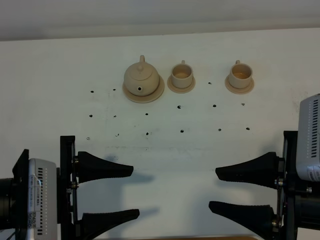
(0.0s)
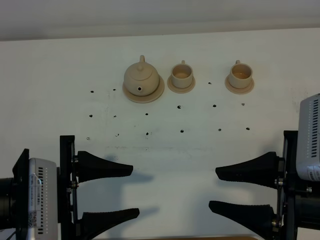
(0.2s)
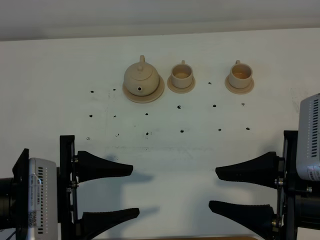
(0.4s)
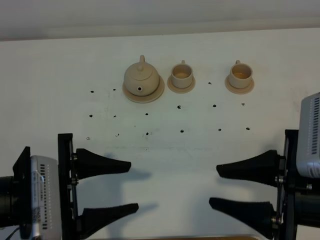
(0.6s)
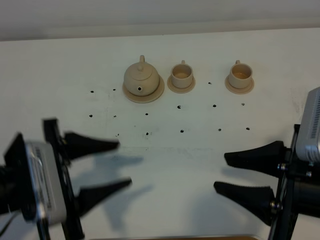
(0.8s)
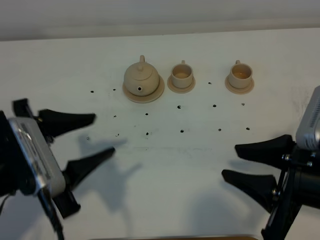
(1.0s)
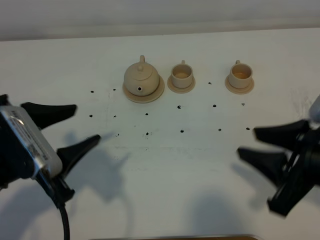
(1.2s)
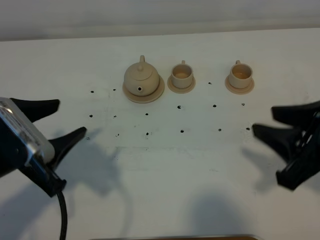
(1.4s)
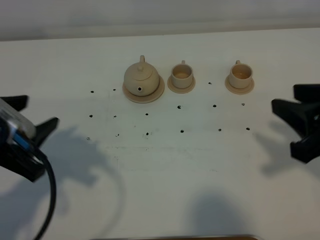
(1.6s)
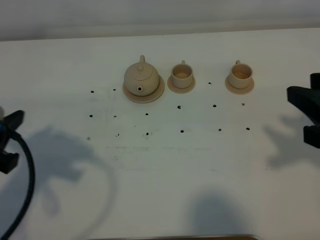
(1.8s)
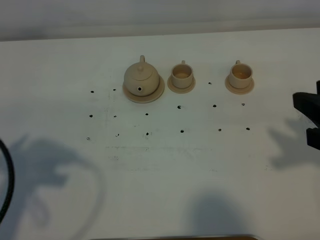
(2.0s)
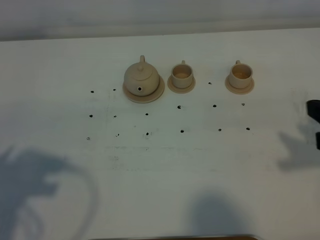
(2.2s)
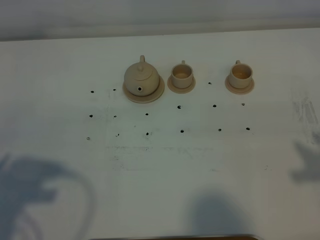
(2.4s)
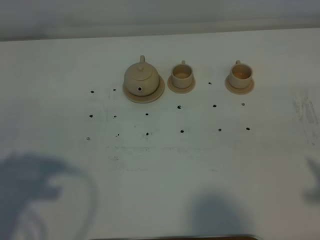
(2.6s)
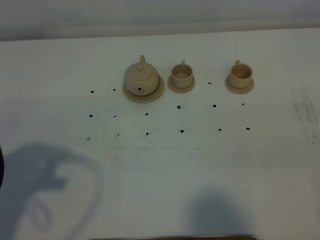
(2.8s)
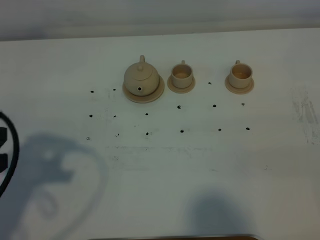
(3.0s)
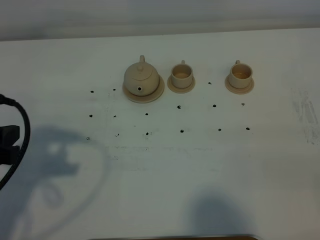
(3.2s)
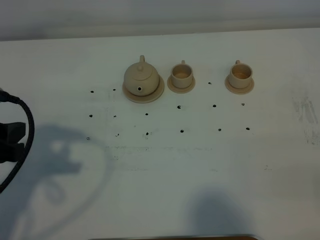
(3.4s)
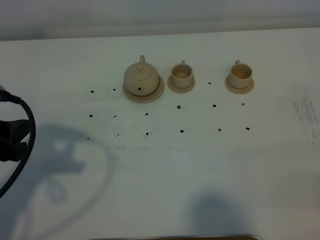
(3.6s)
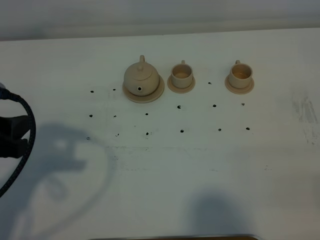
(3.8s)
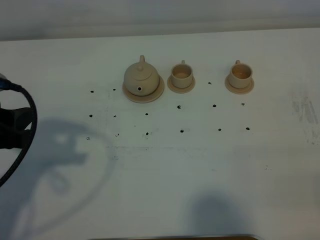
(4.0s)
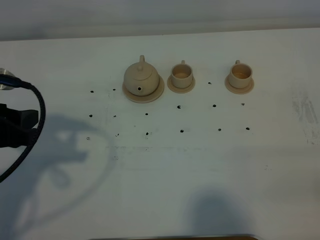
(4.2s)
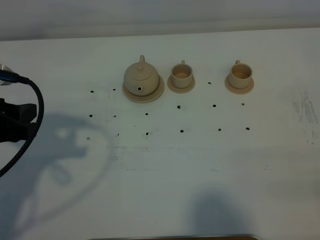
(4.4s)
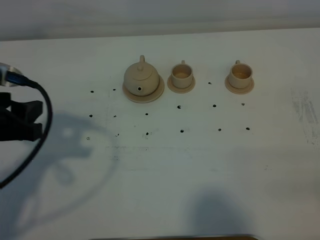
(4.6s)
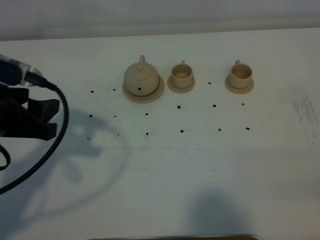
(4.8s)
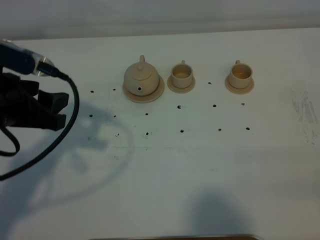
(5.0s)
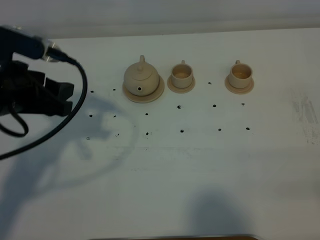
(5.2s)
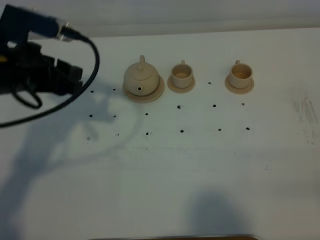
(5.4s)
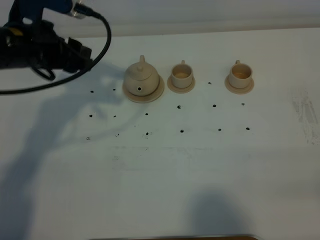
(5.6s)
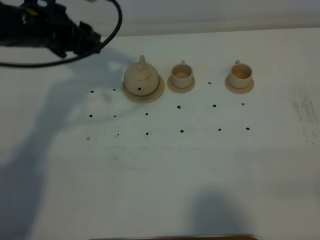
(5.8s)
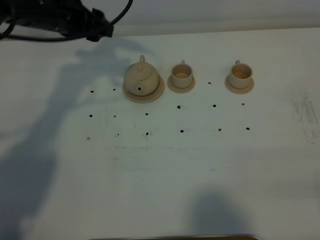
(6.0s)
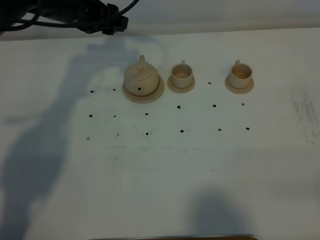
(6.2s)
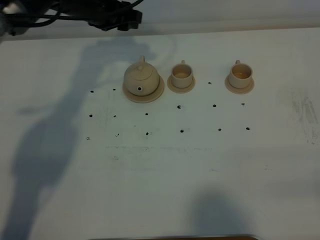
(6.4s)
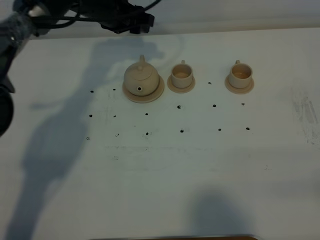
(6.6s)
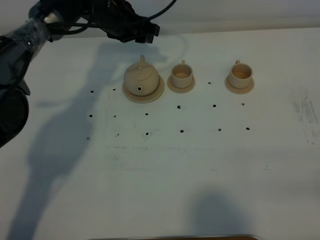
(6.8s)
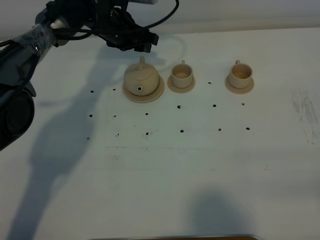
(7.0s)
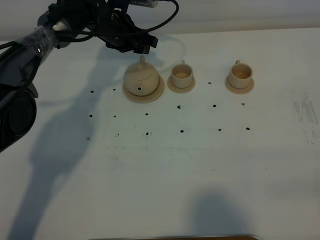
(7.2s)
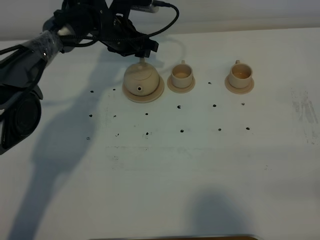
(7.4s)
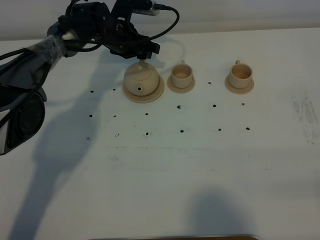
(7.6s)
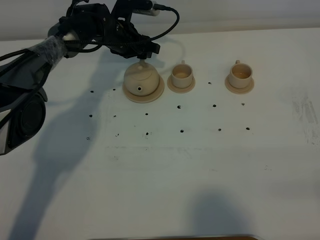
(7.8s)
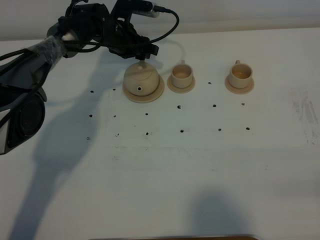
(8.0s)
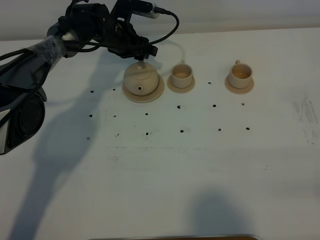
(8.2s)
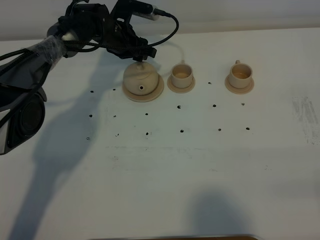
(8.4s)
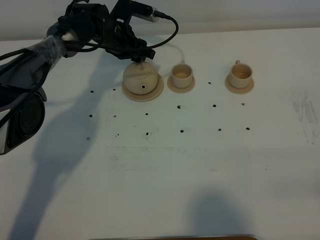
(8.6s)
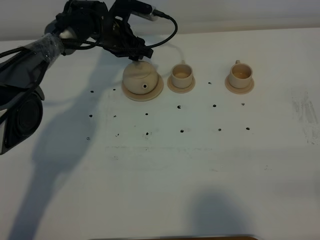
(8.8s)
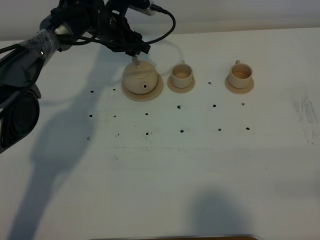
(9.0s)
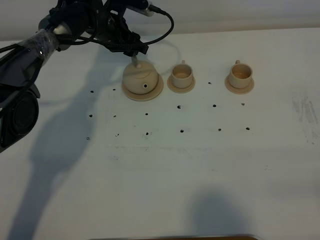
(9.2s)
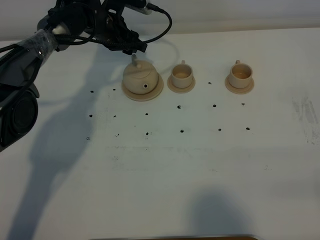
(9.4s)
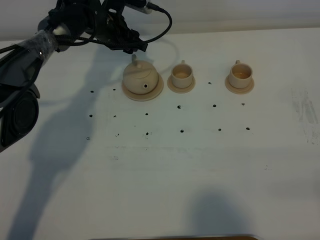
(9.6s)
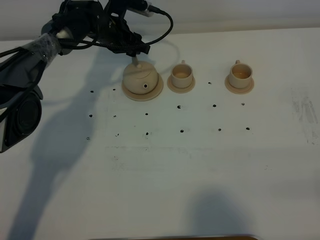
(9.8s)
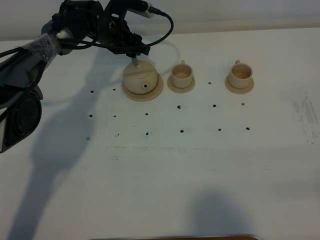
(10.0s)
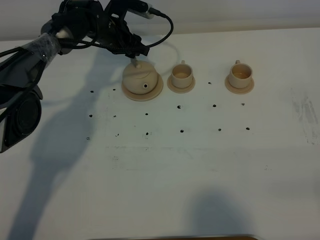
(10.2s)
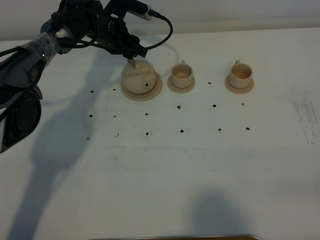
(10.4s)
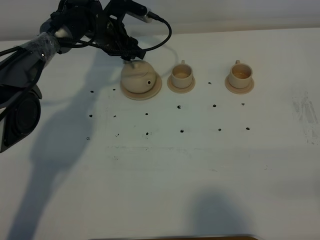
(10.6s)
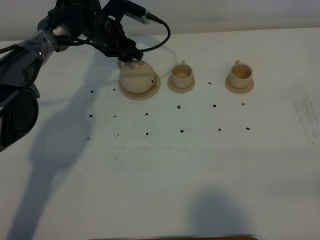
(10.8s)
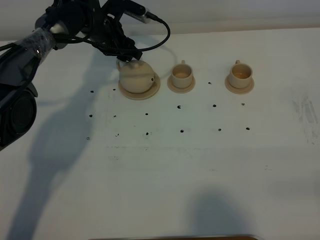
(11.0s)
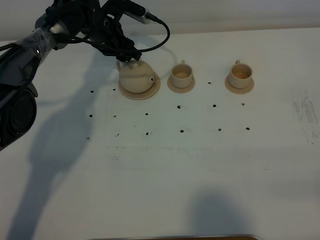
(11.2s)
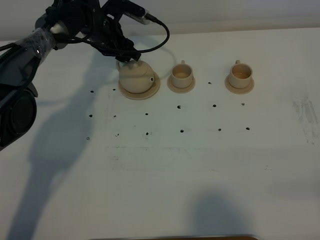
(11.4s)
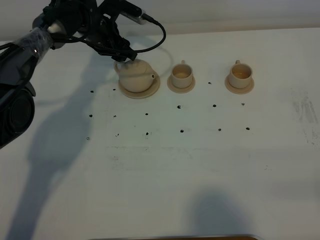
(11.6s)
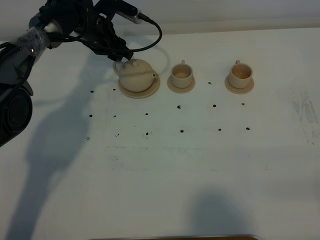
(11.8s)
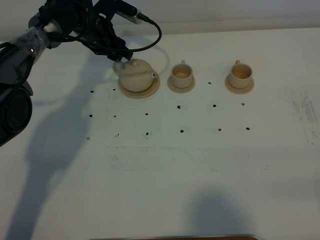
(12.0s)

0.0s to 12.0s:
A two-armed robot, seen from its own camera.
Task of the whole recording: grasp the brown teapot and pour the tea into the two brown teacups one by one, put the brown teapot back in its original place.
0.0s to 1.6s: The left gripper goes roughly 10 cm to the left and upward; the right gripper goes about 10 cm to the right and forward.
1.6s to 3.0s: The right gripper travels backward and to the right by about 15 cm.
3.0s to 4.4s: The left gripper travels forward by some 5 cm.
4.4s to 6.0s: The left gripper goes roughly 25 cm forward.
6.0s to 7.6s: The left gripper goes approximately 20 cm downward, forward and to the right.
7.6s to 10.4s: The grippers make only small movements.
10.4s to 12.0s: The right gripper closes.

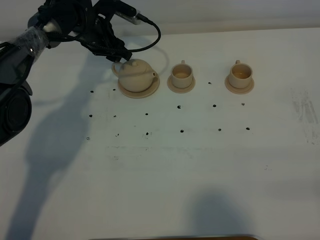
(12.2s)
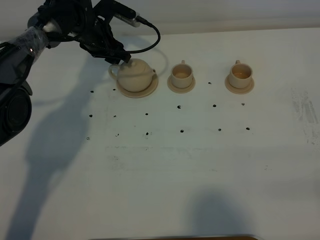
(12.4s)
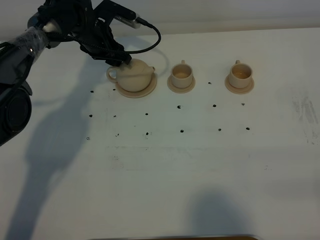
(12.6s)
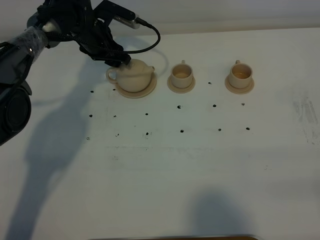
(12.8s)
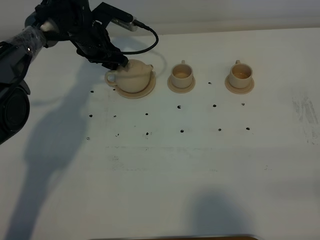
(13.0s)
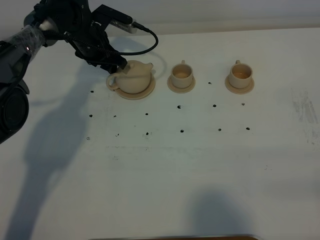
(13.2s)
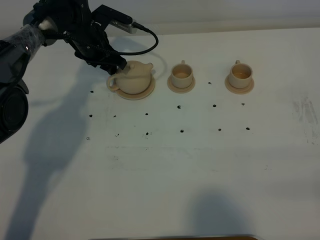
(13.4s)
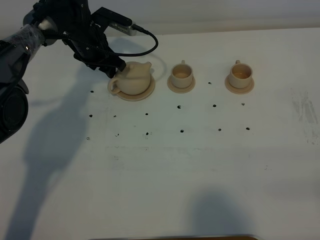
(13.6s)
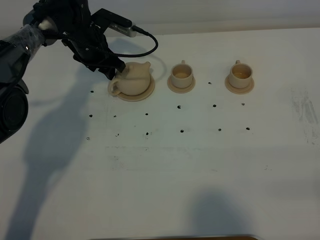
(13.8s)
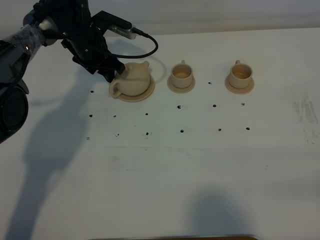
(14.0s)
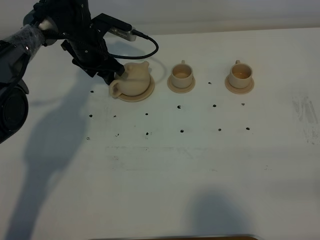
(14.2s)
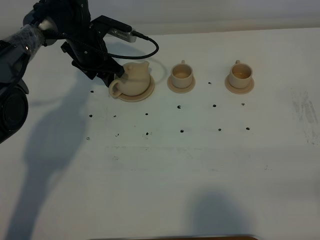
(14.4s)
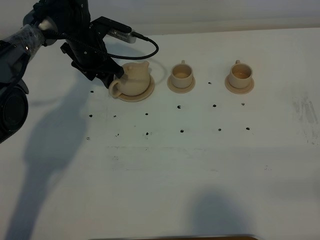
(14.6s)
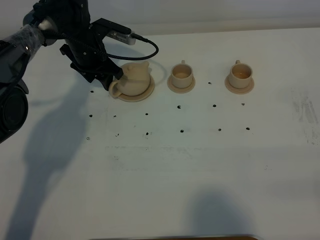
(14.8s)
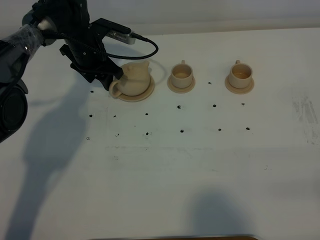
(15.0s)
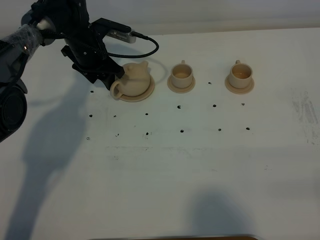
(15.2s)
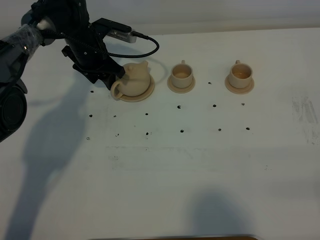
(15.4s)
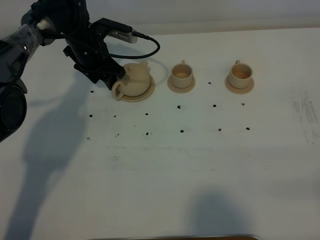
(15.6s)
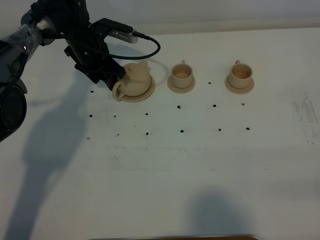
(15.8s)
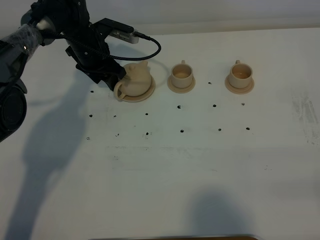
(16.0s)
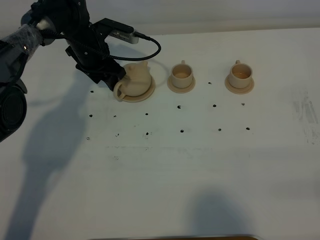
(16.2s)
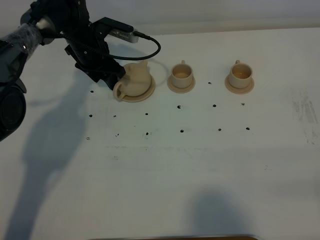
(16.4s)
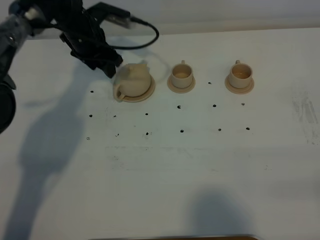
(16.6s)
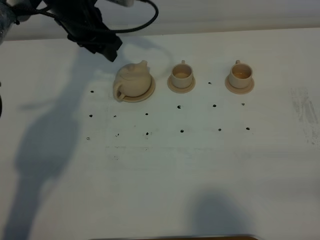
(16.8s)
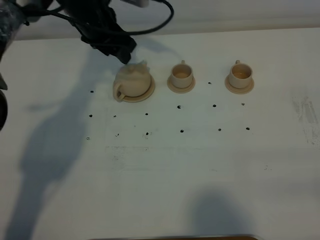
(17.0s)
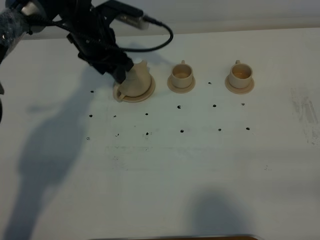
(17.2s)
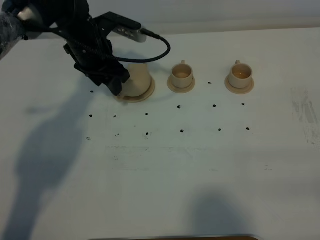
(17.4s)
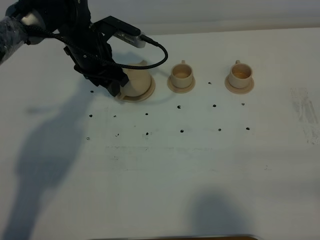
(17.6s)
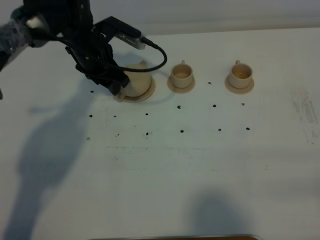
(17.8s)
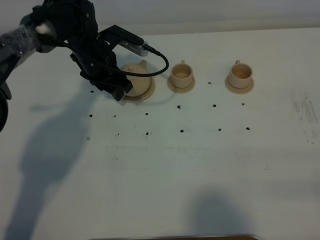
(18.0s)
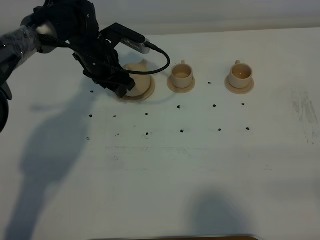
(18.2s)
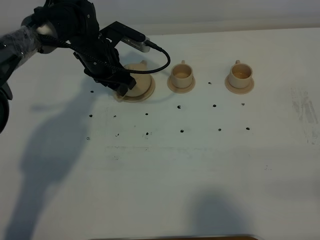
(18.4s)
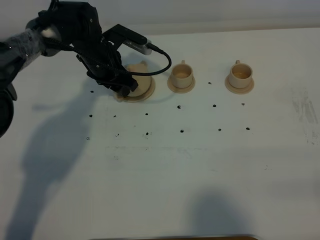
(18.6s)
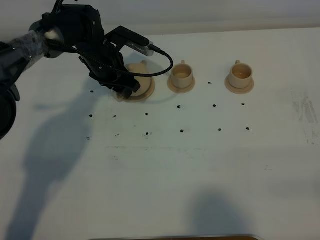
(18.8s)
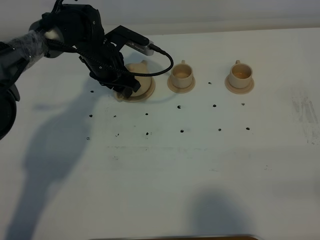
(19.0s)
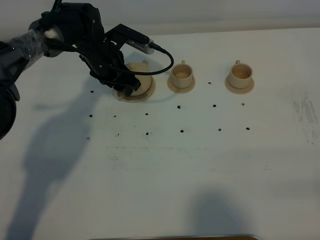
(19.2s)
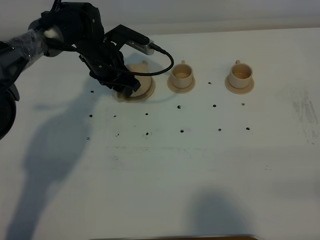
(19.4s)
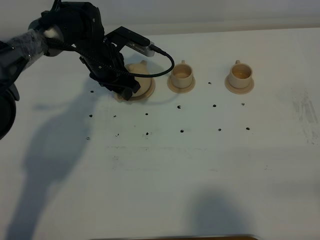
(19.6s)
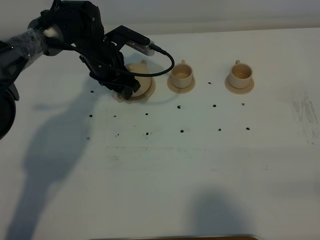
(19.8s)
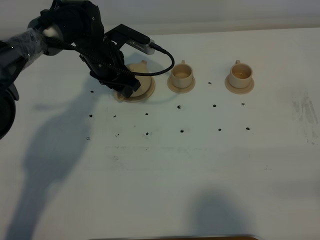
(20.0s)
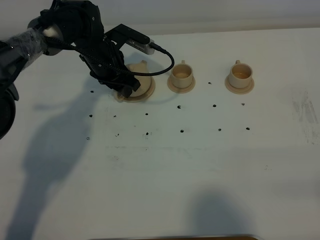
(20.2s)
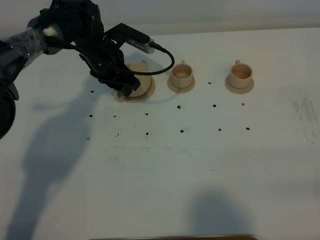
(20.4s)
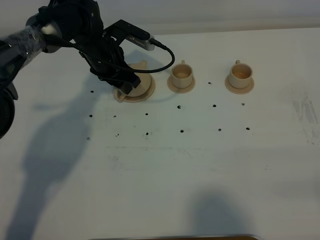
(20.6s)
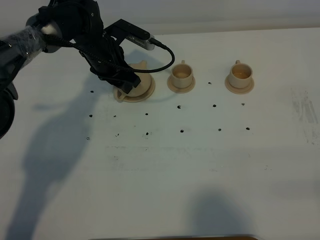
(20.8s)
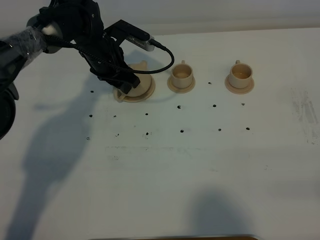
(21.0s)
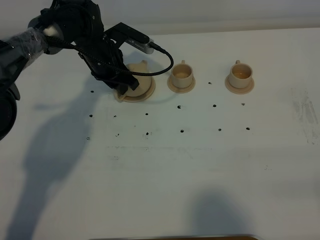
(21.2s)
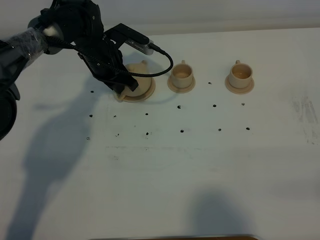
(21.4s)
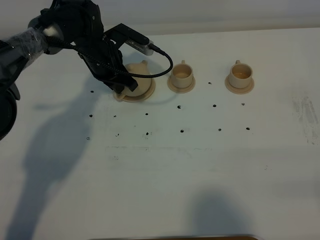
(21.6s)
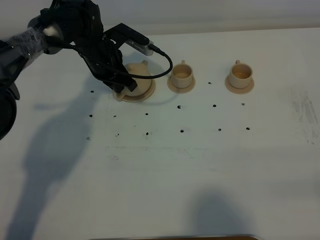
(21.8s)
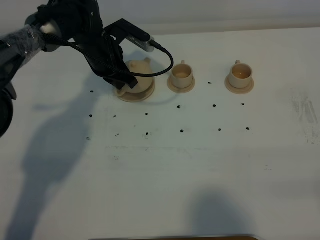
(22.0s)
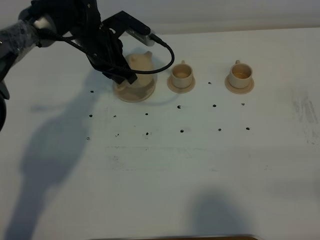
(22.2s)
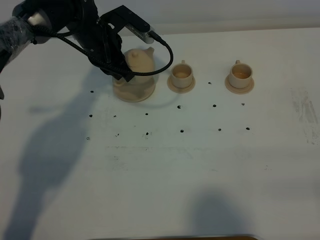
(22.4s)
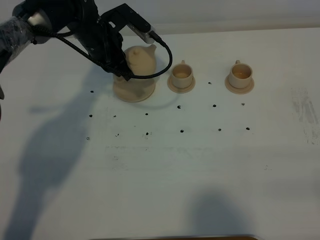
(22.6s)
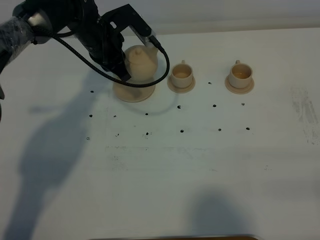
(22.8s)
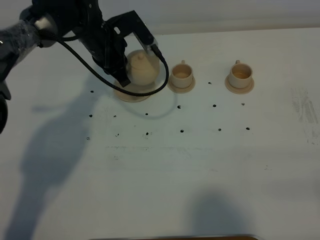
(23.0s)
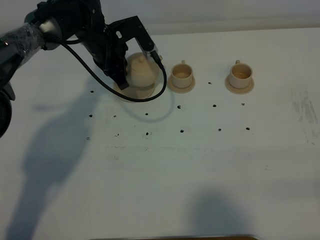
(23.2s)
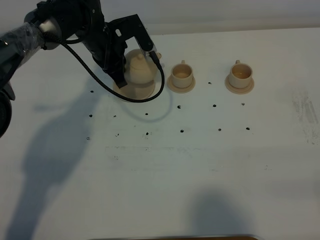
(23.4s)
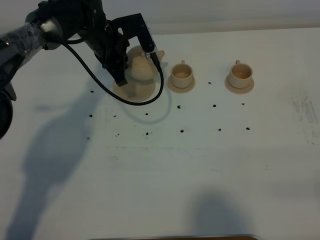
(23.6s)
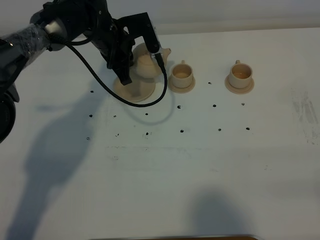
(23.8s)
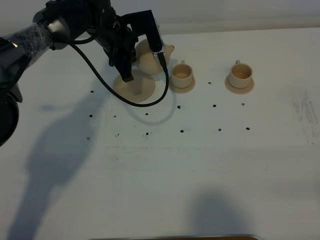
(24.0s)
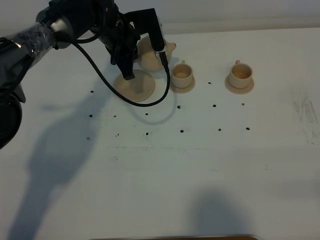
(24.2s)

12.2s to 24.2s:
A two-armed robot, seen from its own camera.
Task of the whole recording: grasp the brown teapot and pour the tea into the two brown teacups one by one, put the brown teapot back in its original place.
Step, 12.2s to 23.4s: Pick up the teapot with the left gripper.
12.2s to 13.8s: There are only small adjustments of the grippers.
13.8s to 16.6s: The grippers move only a little.
16.6s to 18.2s: The left gripper moves roughly 5 cm.
18.2s to 19.8s: The grippers stay close to where they were, moving slightly.
19.8s to 21.2s: The left gripper closes its fingers.
21.2s to 22.6s: The left gripper closes up.
